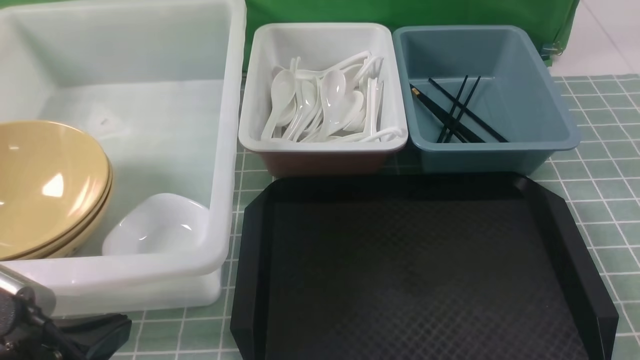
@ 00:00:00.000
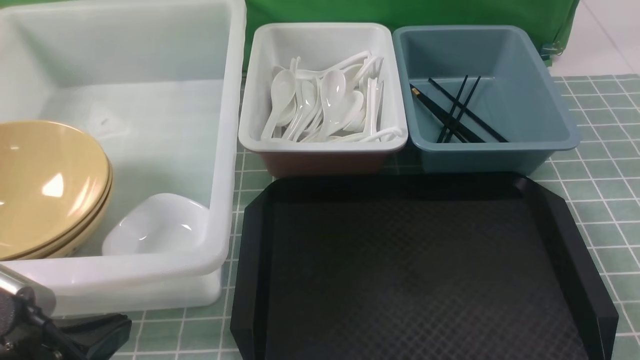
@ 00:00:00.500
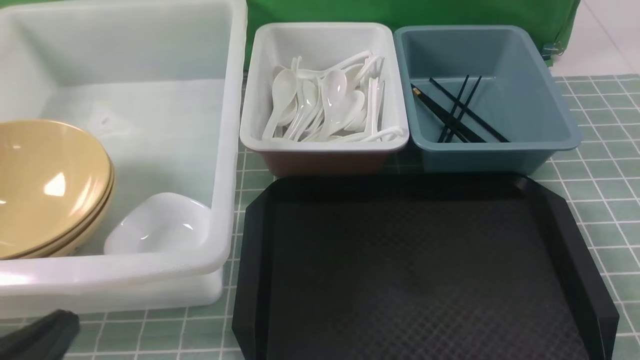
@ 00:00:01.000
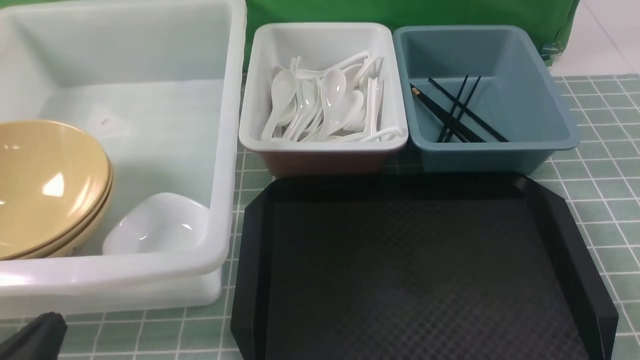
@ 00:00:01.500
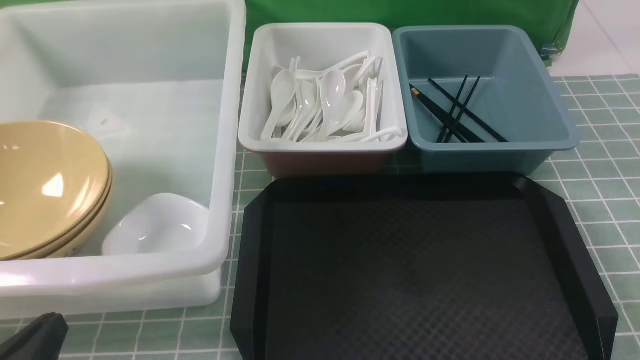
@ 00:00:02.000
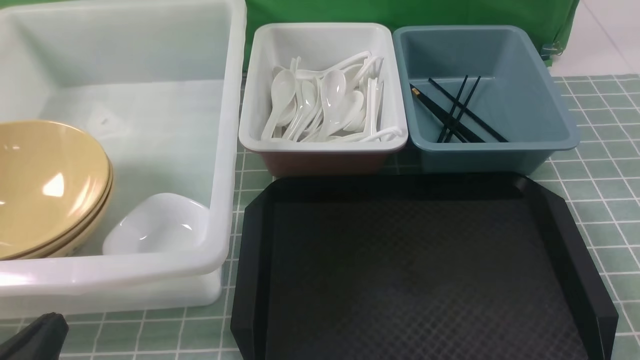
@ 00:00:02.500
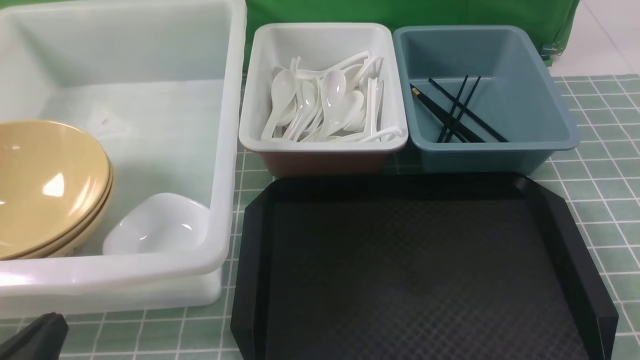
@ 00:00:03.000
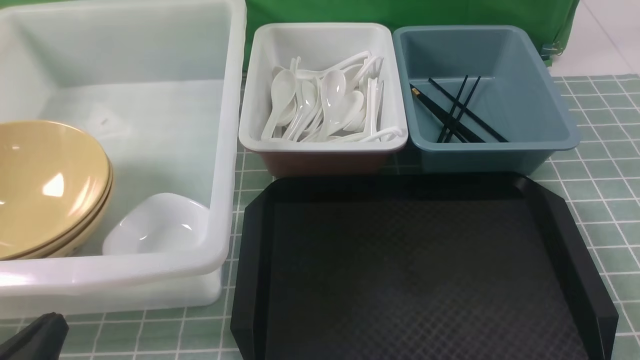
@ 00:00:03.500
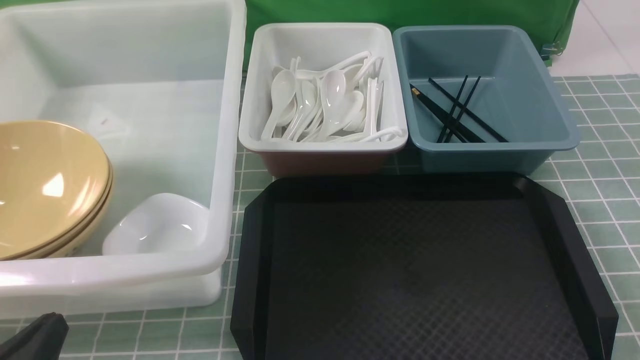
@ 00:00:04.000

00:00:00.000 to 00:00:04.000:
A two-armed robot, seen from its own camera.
Task of the whole recording: on blue table put chopsticks spoon bowls plates into blue grey white boxes.
00:00:00.000 to 00:00:02.000: The left gripper shifts approximately 5 cm downward.
00:00:02.000 to 00:00:04.000: Neither gripper changes place.
